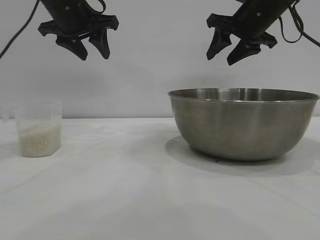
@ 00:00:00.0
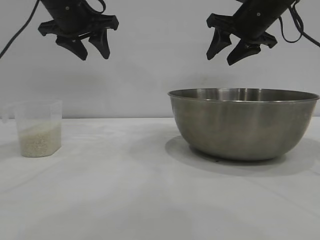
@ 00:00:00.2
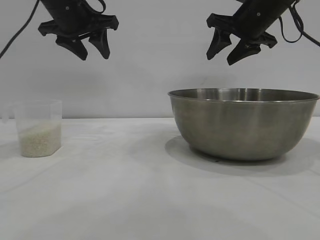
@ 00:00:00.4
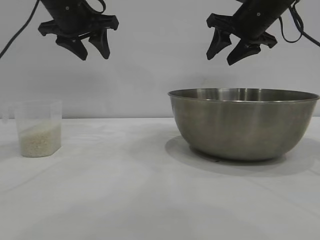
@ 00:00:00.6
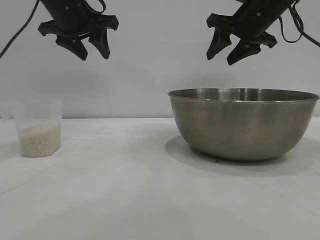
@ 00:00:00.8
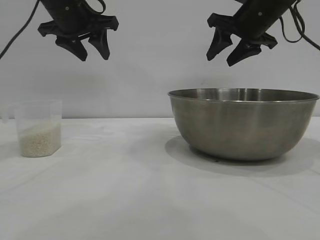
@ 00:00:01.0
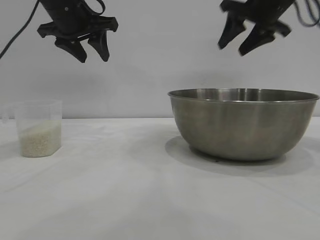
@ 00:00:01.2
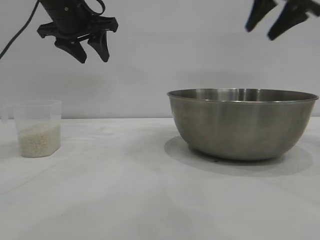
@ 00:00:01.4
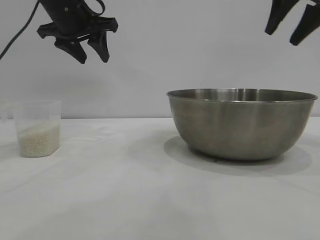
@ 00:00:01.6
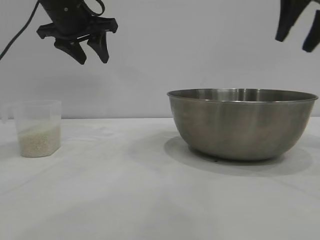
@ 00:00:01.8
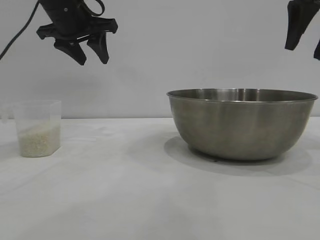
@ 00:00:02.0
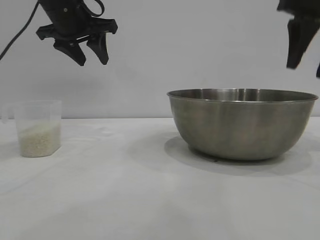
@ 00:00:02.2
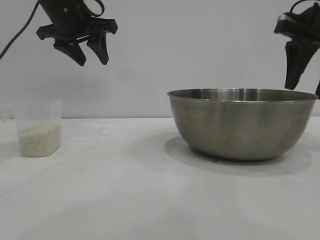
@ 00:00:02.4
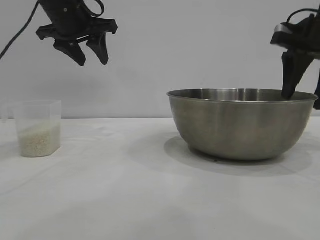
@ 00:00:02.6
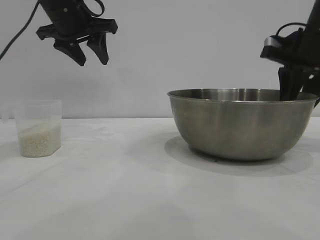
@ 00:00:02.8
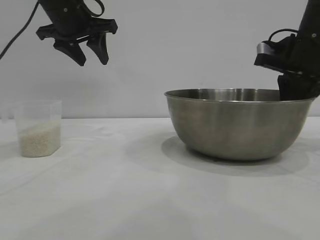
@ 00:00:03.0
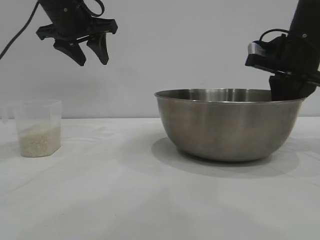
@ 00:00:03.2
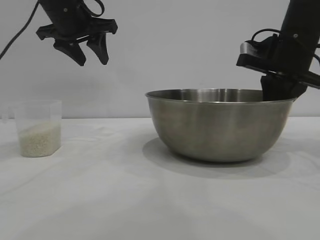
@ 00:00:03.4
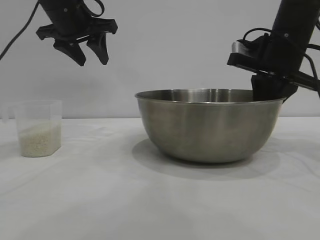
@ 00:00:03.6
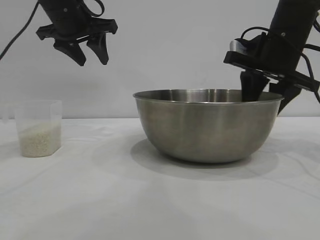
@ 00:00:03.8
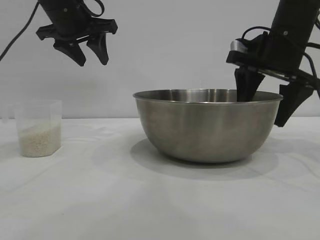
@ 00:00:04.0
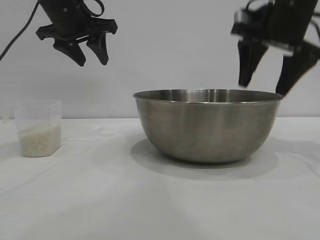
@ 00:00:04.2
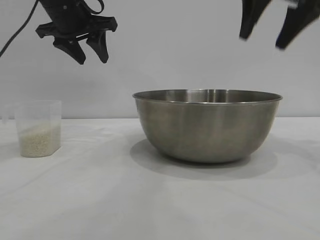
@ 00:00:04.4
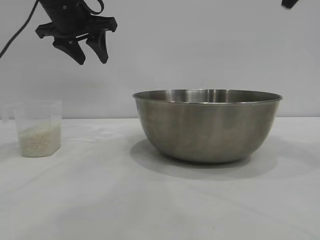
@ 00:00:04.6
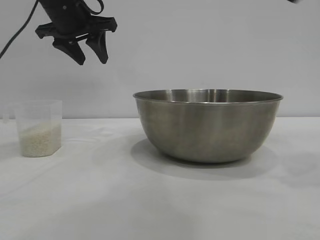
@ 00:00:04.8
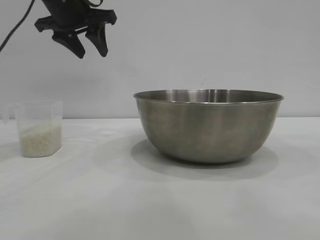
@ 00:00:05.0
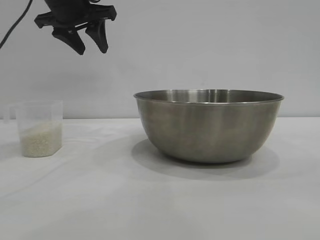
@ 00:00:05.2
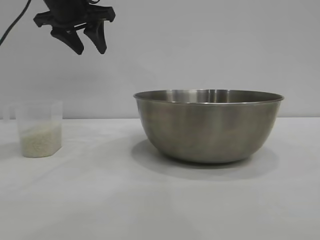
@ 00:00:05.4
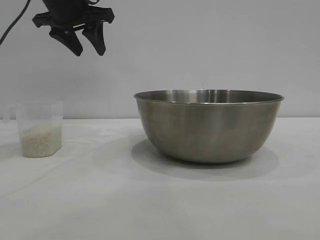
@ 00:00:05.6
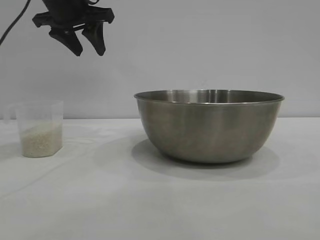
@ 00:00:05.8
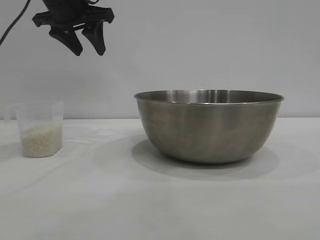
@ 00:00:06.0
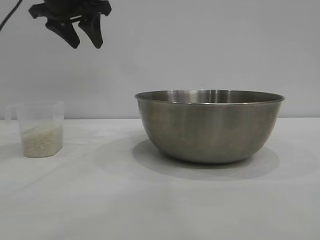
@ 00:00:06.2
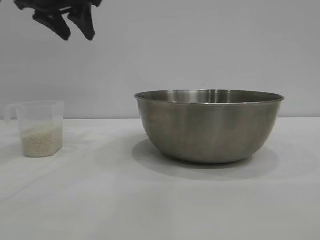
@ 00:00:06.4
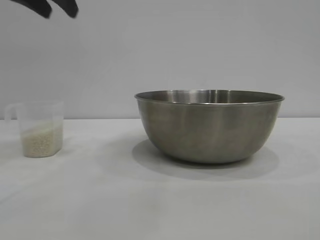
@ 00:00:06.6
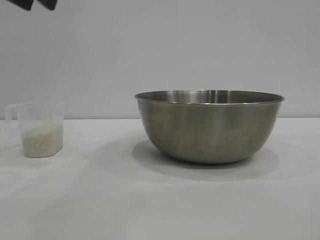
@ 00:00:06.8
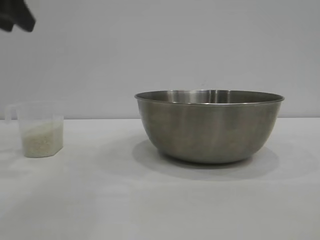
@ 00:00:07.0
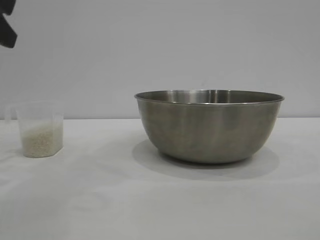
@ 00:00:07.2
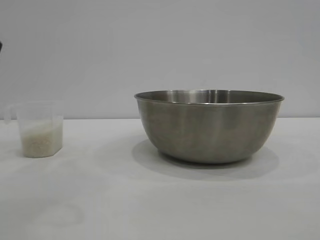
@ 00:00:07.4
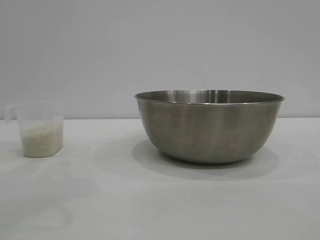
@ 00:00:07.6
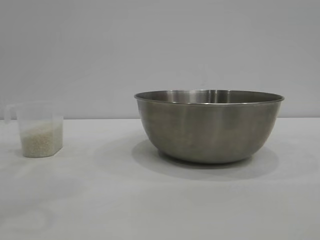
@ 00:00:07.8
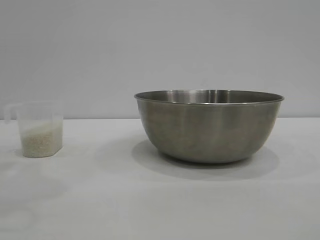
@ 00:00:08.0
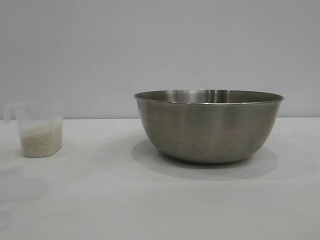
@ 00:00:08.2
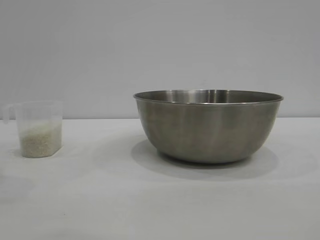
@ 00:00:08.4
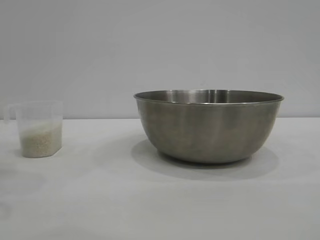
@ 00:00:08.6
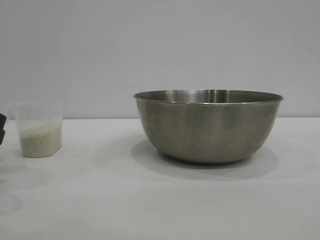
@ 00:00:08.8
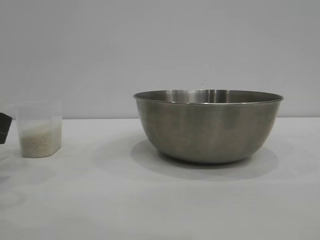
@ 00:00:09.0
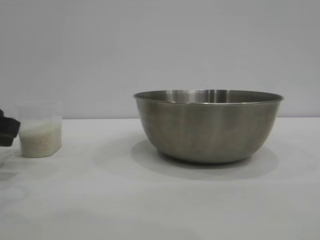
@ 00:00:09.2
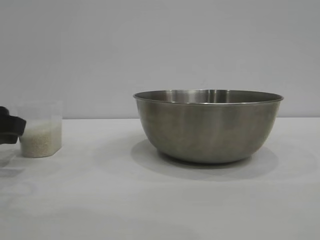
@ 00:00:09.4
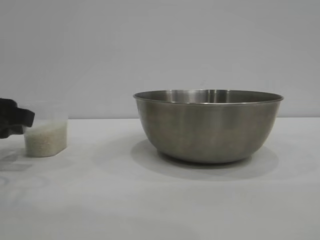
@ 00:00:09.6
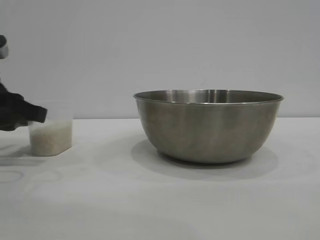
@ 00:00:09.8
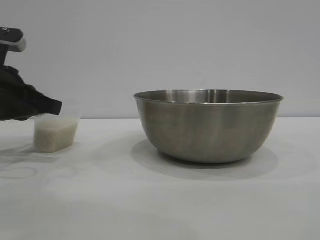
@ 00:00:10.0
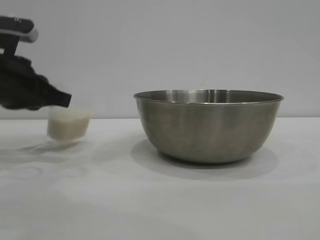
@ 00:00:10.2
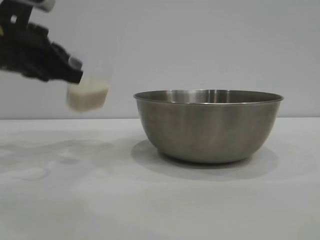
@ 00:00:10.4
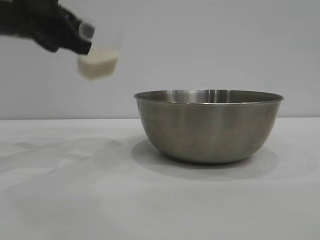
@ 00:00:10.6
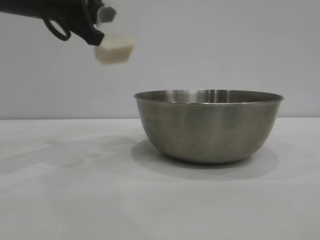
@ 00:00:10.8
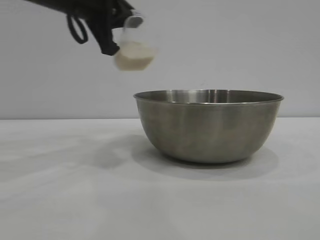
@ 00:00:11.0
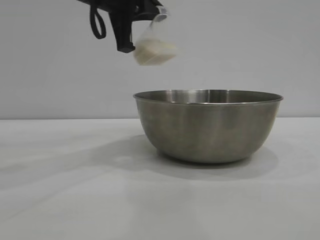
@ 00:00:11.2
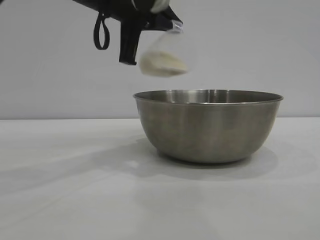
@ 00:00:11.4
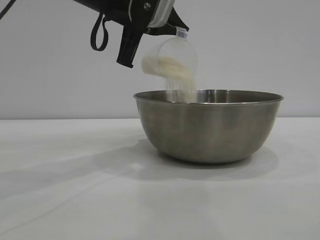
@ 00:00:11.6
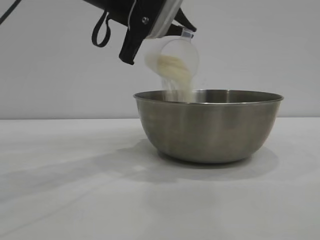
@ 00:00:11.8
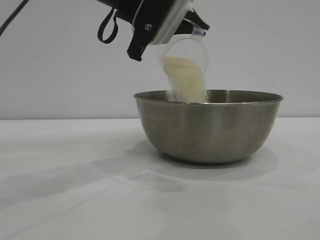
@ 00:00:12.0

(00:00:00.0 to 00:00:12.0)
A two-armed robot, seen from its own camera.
Task of the whole recording: the right gripper grasp the rice container and place it in the center of the table, the left gripper grasp the rice scoop and pour the rice into the rice container.
Step, 00:00:00.0 - 00:00:04.2: Move the bowl to the center of view with the right gripper.
Step, 00:00:04.4 - 00:00:10.0: Pick up the cup with rice in it with the left gripper.

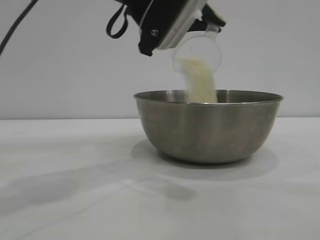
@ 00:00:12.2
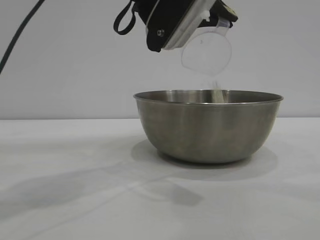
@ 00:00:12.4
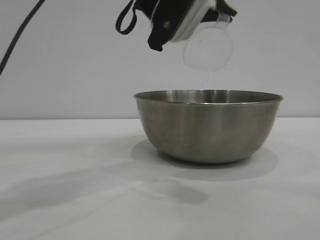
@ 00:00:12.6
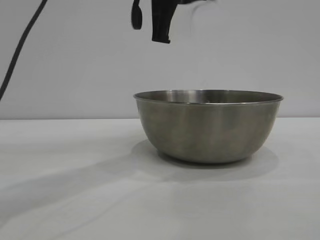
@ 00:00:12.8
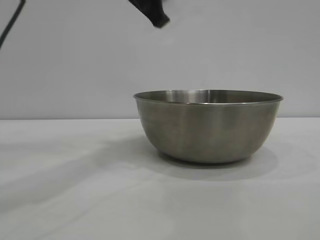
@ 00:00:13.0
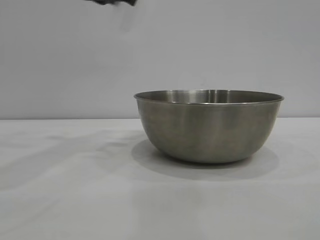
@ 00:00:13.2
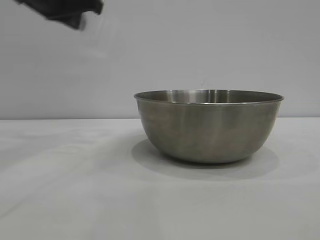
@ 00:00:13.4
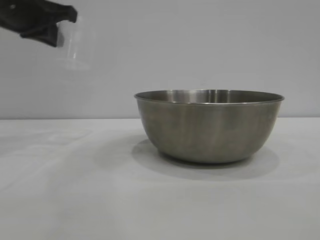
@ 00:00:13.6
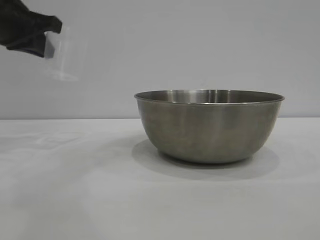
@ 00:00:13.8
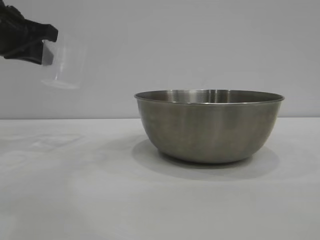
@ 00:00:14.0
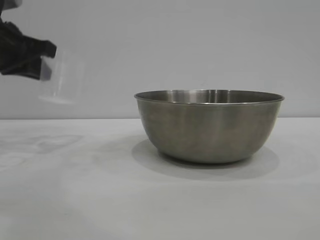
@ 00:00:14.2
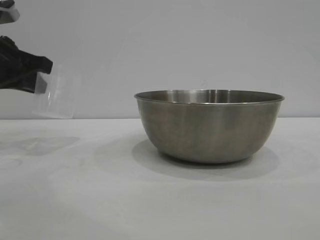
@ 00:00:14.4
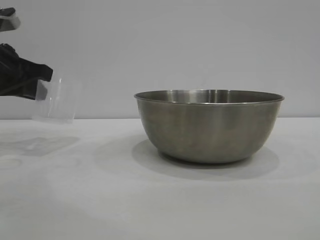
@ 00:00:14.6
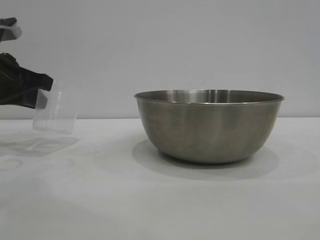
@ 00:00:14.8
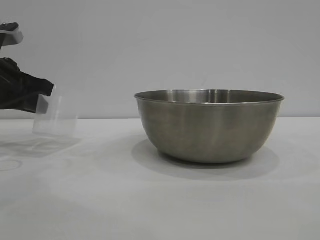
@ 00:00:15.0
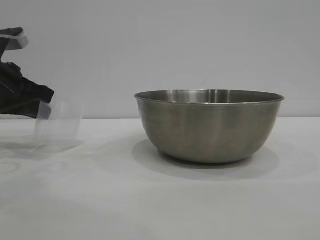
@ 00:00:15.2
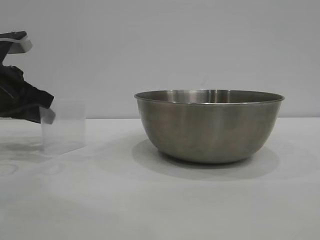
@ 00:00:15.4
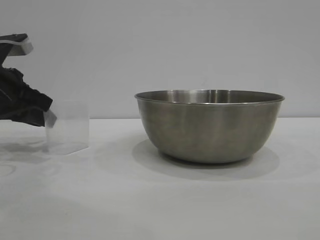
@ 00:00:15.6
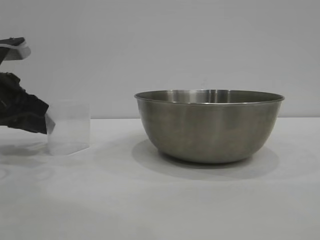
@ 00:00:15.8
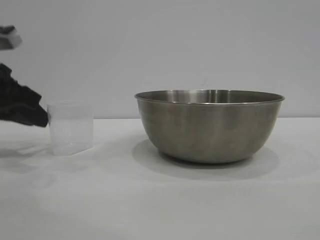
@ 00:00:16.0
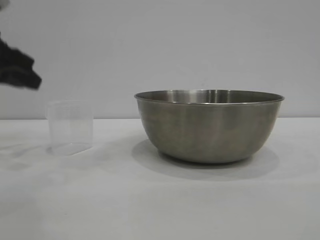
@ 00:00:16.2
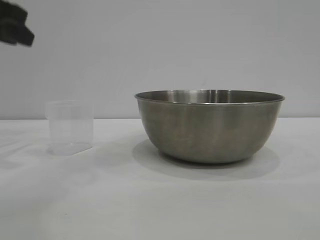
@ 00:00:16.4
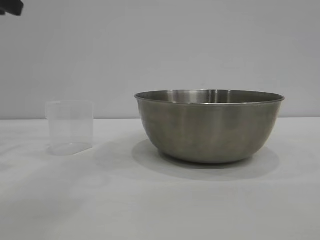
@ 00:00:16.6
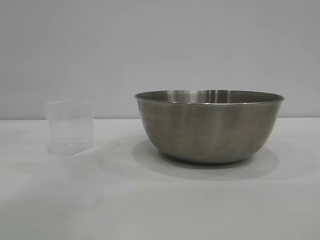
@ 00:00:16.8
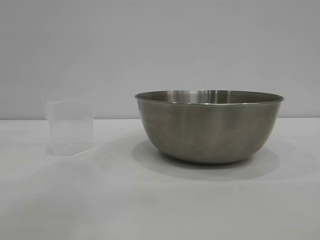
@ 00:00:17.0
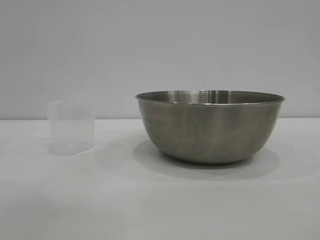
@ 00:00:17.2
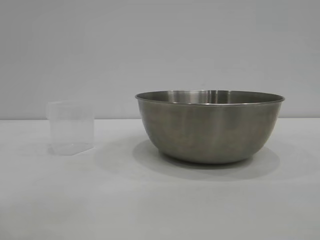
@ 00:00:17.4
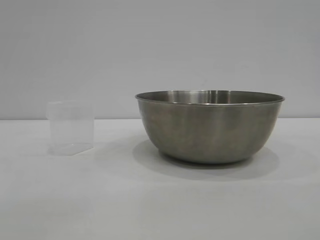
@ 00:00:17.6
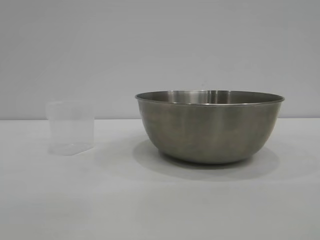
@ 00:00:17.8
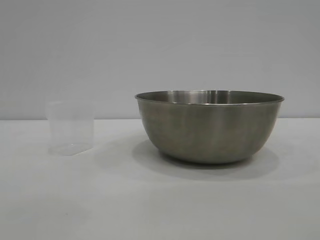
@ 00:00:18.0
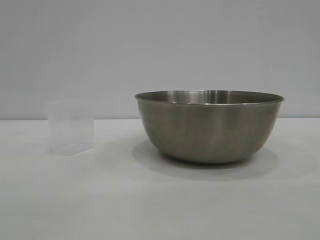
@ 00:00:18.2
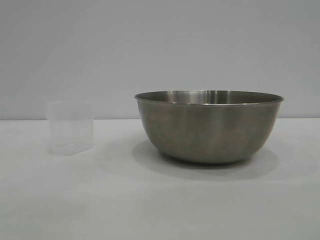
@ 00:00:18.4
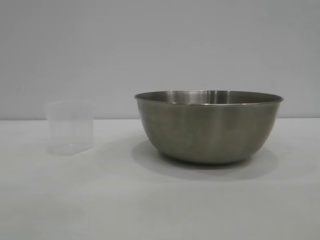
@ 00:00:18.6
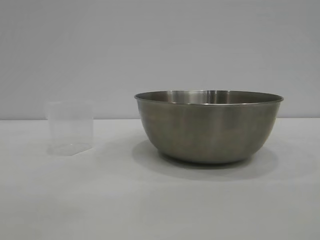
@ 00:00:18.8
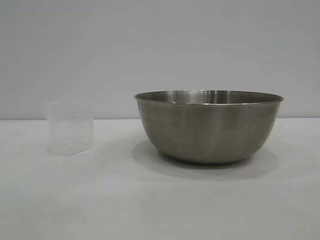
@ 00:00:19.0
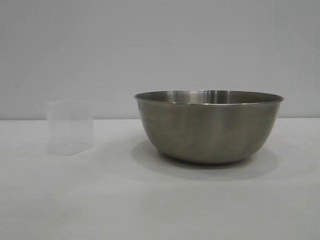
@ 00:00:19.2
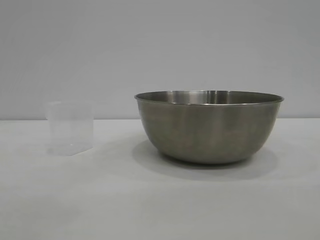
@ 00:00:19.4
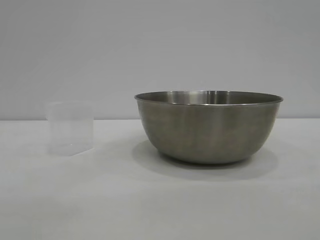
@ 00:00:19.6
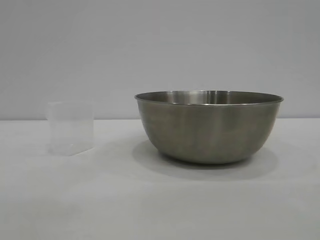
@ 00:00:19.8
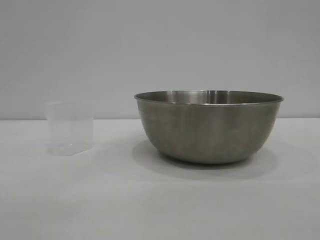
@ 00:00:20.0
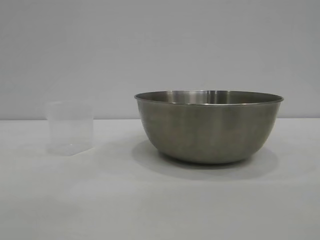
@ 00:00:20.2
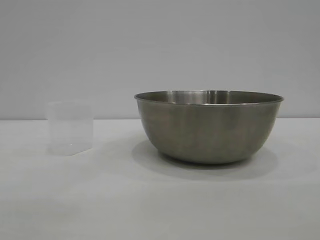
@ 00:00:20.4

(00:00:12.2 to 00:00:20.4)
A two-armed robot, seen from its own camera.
Task of the whole recording: the right gripper grasp the rice container and place it in the center of the table, the left gripper grasp the rice scoop and pour the rice into the rice container.
Step, 00:00:13.0 - 00:00:16.2: Place the cup on the table with the left gripper.
